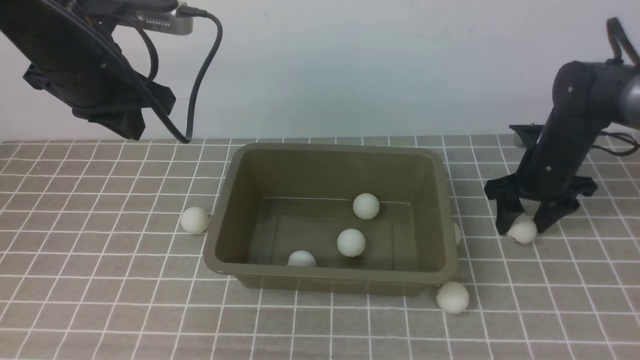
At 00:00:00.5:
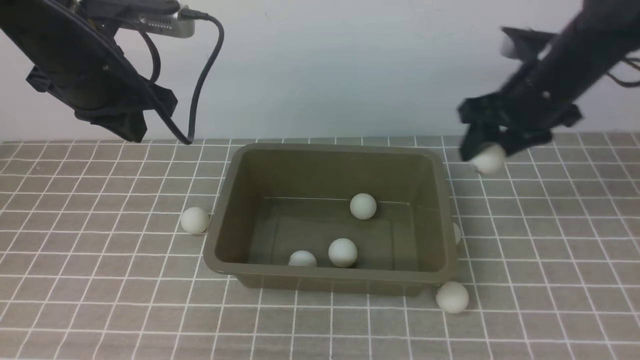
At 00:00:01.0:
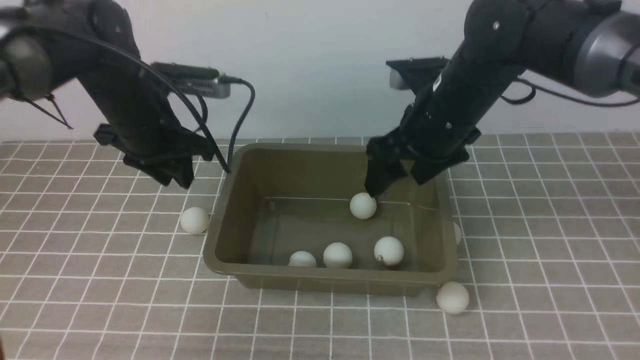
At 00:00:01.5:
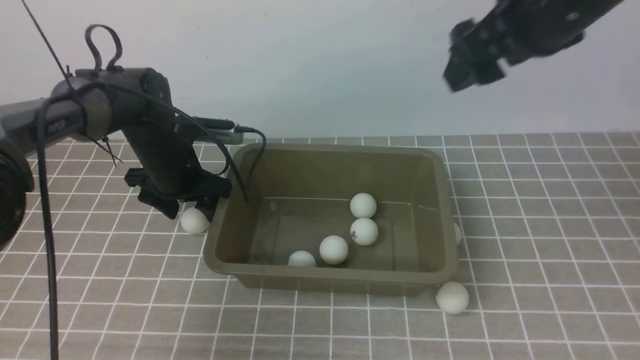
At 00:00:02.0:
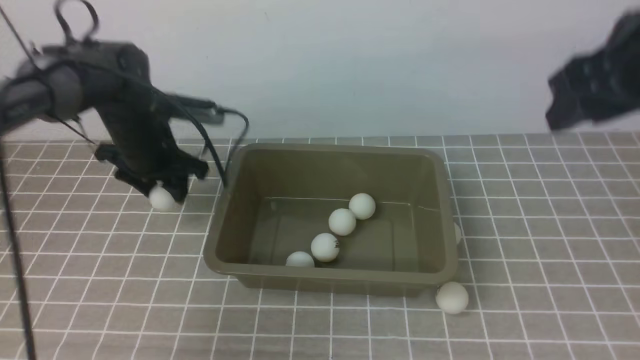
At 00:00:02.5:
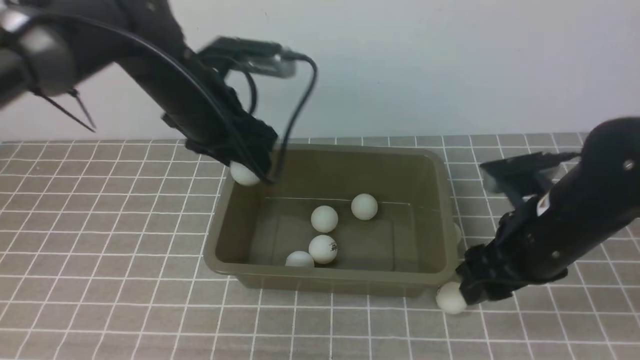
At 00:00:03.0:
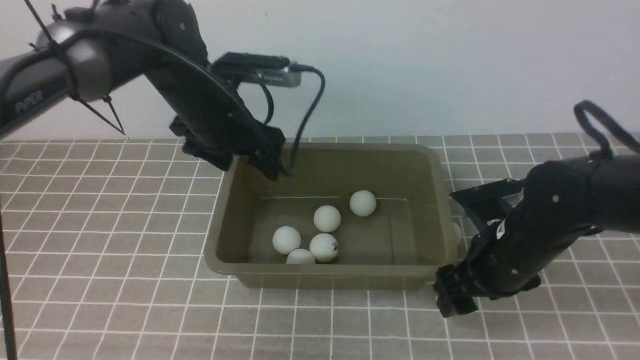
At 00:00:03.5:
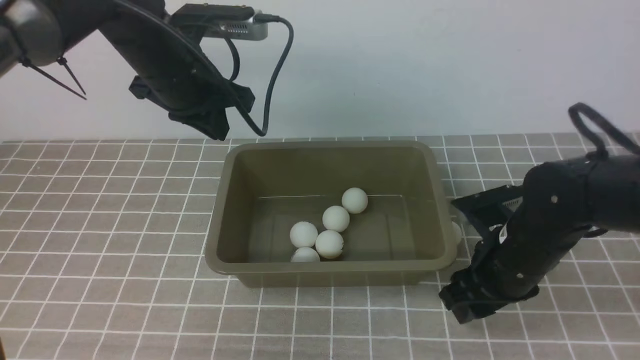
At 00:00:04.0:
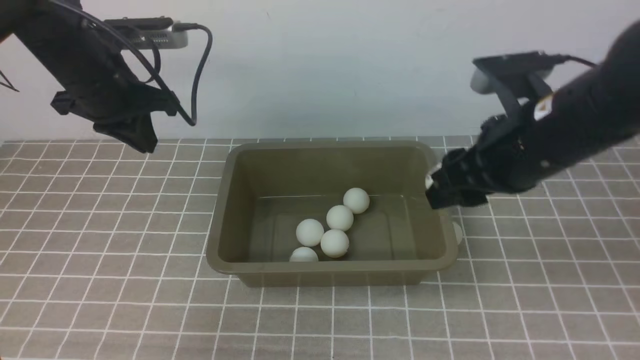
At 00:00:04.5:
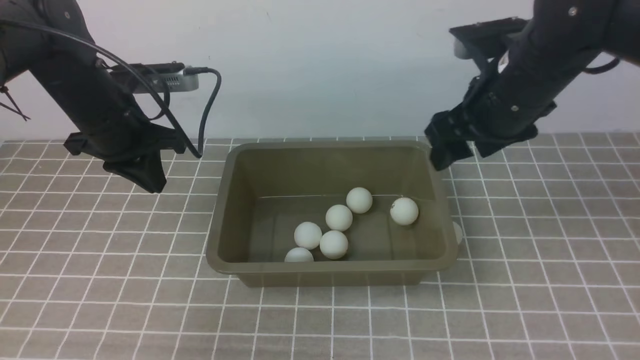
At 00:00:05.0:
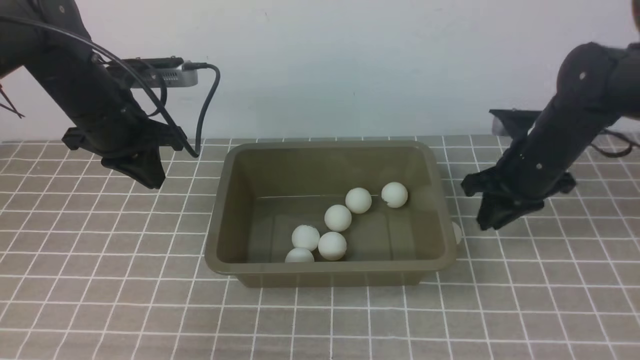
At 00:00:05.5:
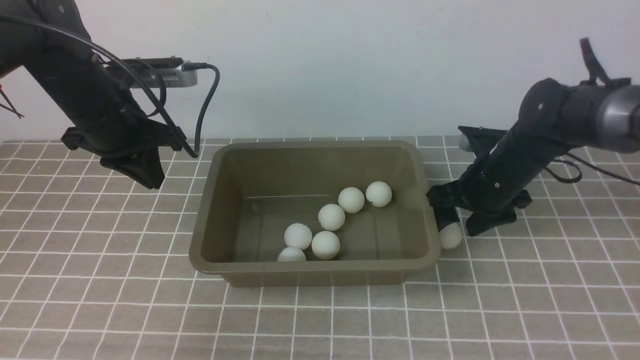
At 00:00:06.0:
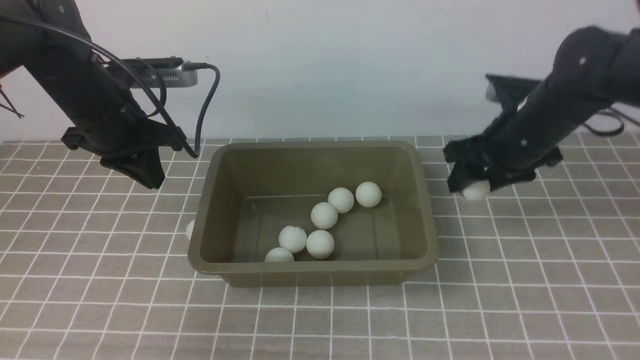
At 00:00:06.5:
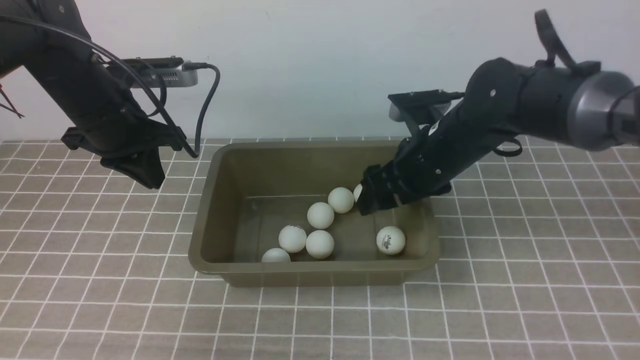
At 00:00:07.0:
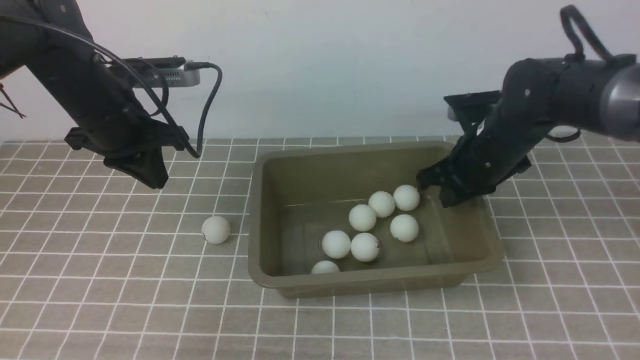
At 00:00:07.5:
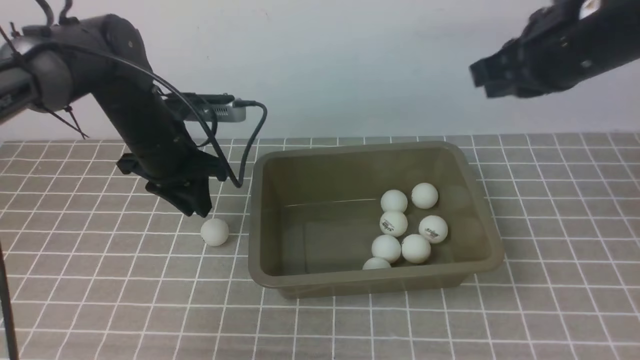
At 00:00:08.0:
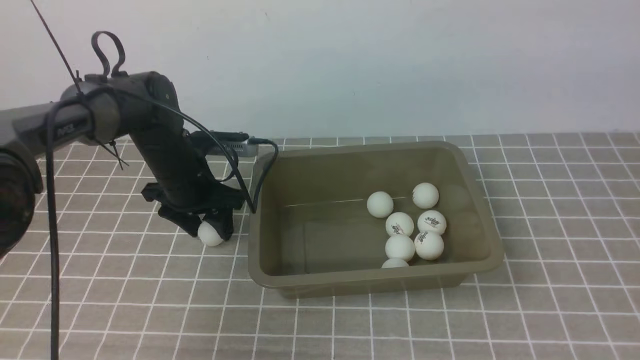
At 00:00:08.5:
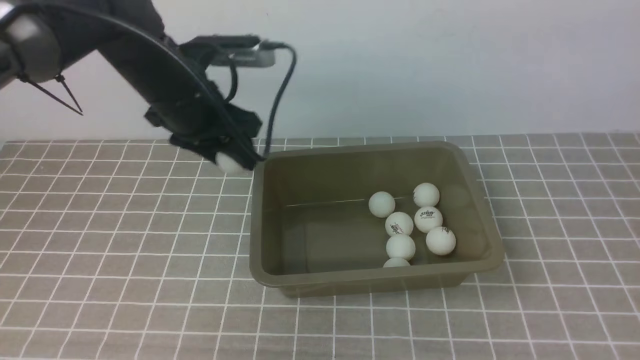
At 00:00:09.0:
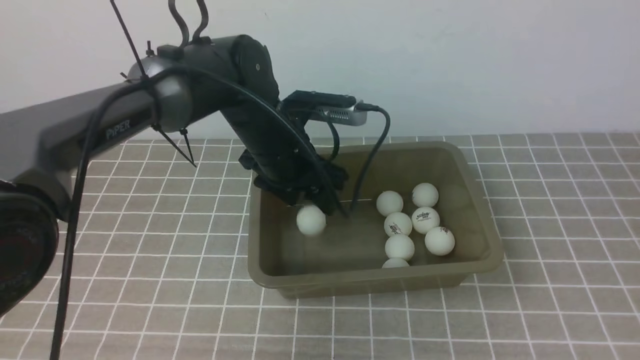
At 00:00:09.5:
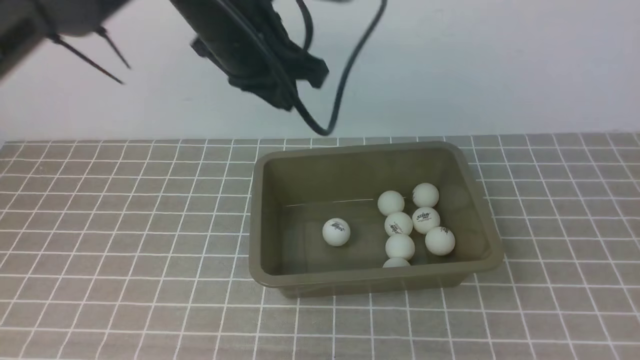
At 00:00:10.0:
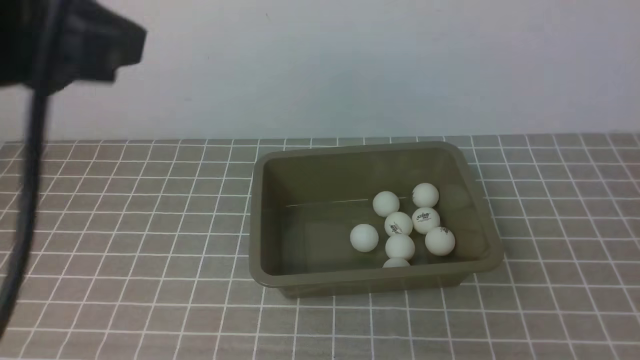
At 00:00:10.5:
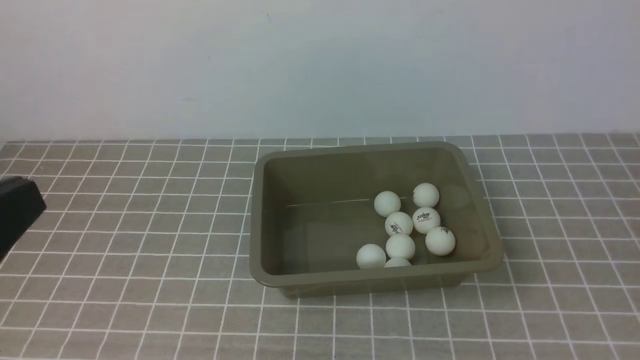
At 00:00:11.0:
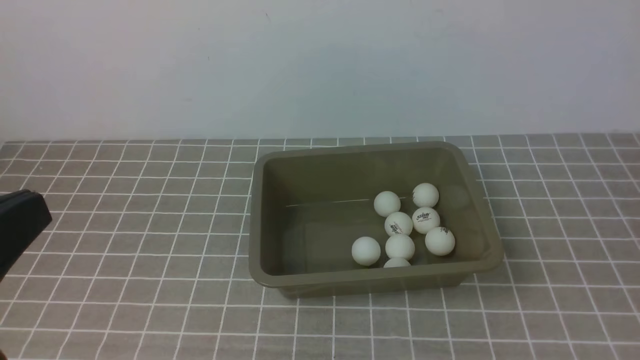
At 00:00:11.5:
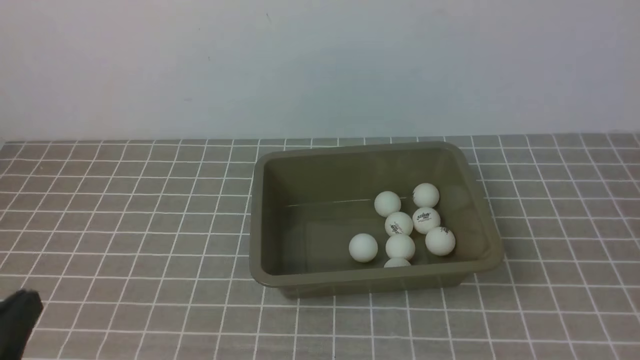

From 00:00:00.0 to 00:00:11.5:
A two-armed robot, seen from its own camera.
Step, from 00:00:01.5 to 00:00:02.0: use the left arm to clamp the table tennis ball closest to it.
Step, from 00:00:03.0 to 00:00:03.5: use the right arm to clamp the table tennis ball closest to it.
Step, from 00:00:04.0 to 00:00:04.5: use the right arm to put the table tennis ball into the box.
Step, from 00:00:05.0 to 00:00:05.5: use the right arm to clamp the table tennis ball closest to it.
Step, from 00:00:06.0 to 00:00:08.0: use the left arm to clamp the table tennis ball closest to it.
Step, from 00:00:08.5 to 00:00:09.0: use the left arm to put the table tennis ball into the box.
From 00:00:00.0 to 00:00:02.0: The right gripper heads upward and backward, covering approximately 25 cm; the left gripper moves downward and forward, approximately 15 cm, and opens.
From 00:00:02.0 to 00:00:04.0: The right gripper moves to the left, some 5 cm, and goes downward and returns, approximately 20 cm each way, while the left gripper is displaced upward by roughly 5 cm, goes to the right and returns, approximately 10 cm each way, and closes.
From 00:00:04.0 to 00:00:06.0: The right gripper shifts approximately 10 cm forward and downward.
From 00:00:06.0 to 00:00:07.5: The right gripper moves upward and backward, about 15 cm, and closes, while the left gripper moves about 5 cm, and opens up.
From 00:00:07.5 to 00:00:09.5: The left gripper travels upward and to the right by roughly 20 cm, and opens, then closes again, while the right gripper travels backward by roughly 35 cm.
From 00:00:09.5 to 00:00:11.5: The left gripper is displaced backward, to the left and downward by roughly 35 cm.

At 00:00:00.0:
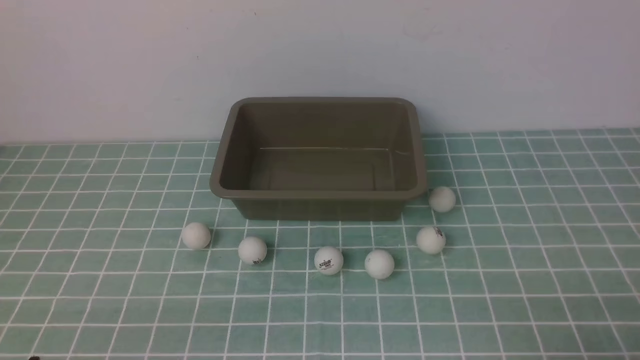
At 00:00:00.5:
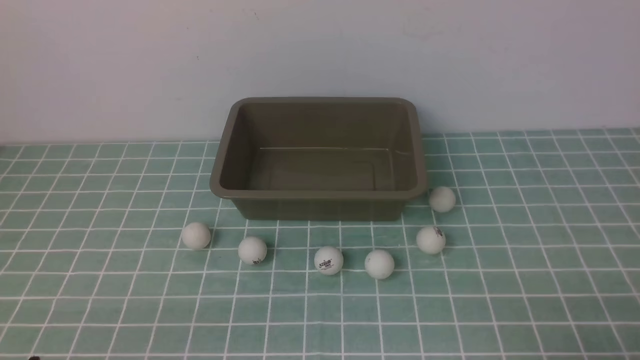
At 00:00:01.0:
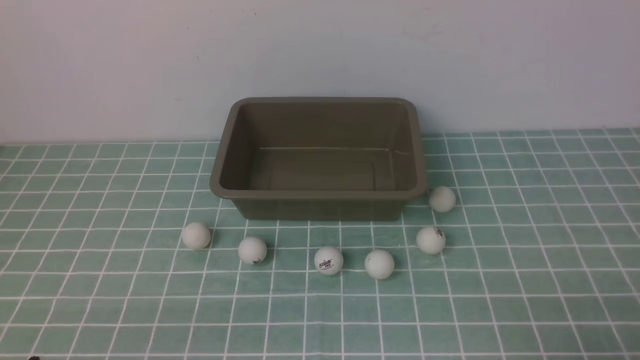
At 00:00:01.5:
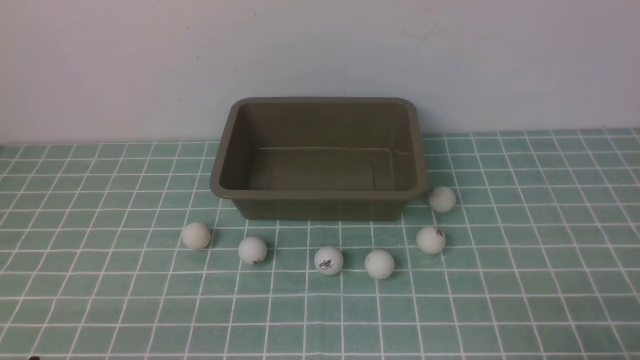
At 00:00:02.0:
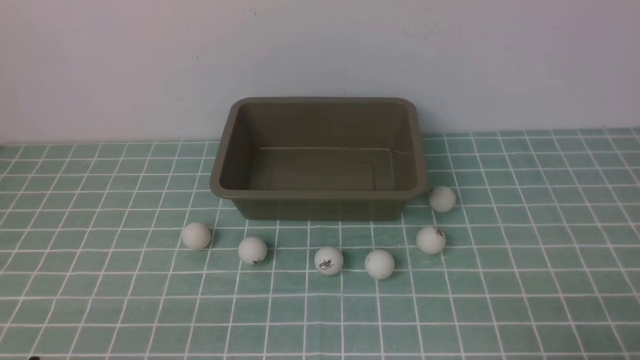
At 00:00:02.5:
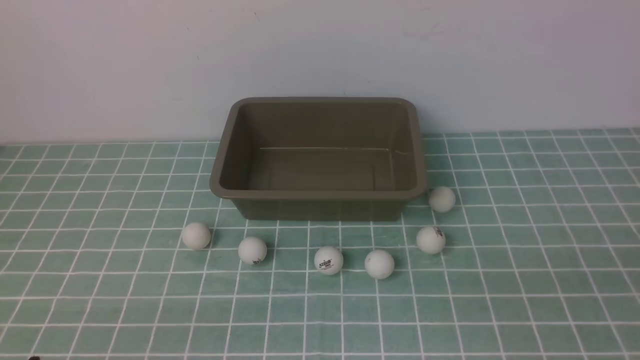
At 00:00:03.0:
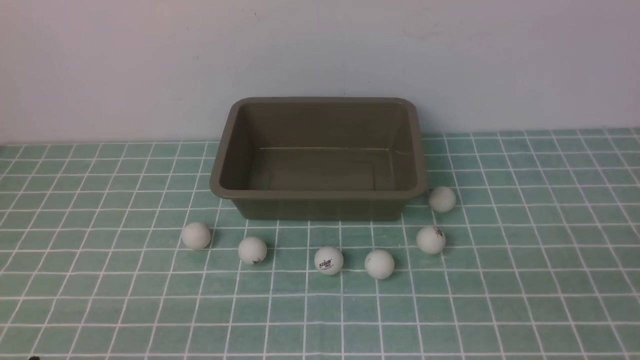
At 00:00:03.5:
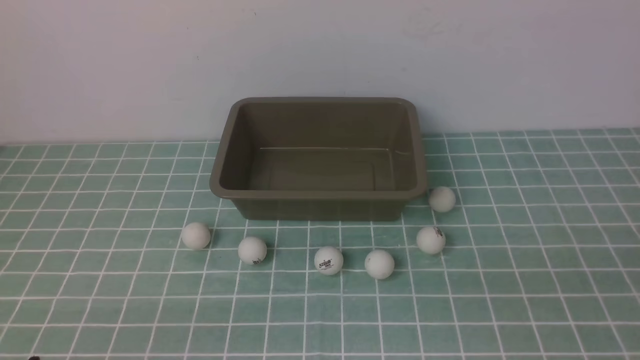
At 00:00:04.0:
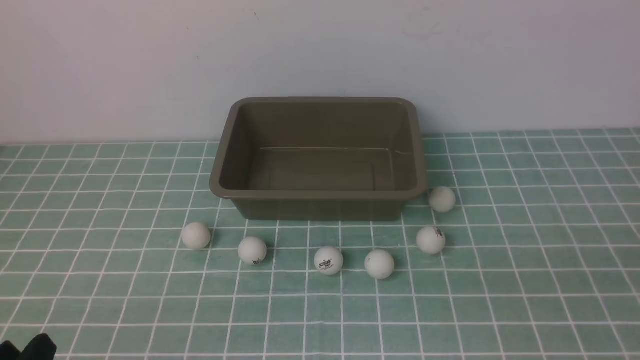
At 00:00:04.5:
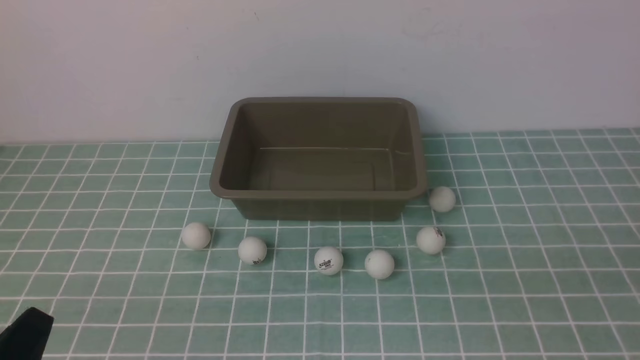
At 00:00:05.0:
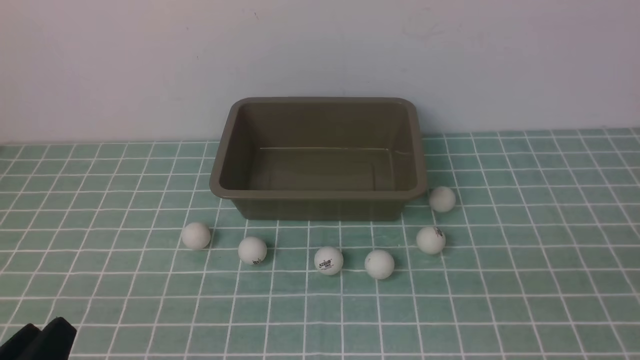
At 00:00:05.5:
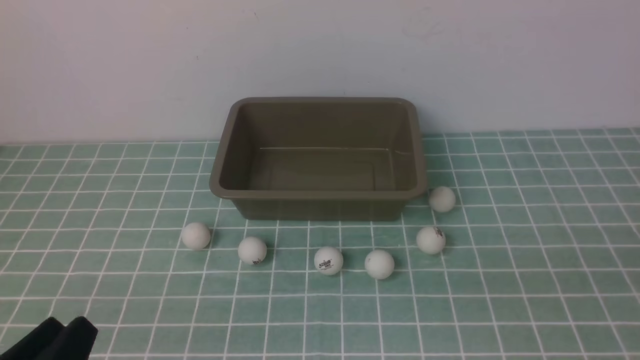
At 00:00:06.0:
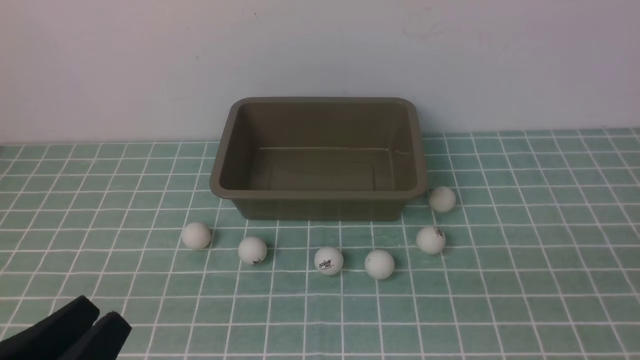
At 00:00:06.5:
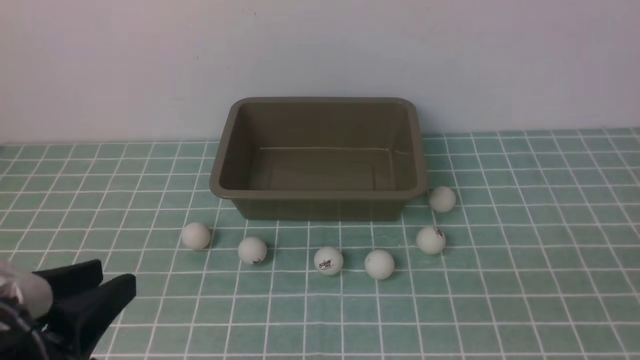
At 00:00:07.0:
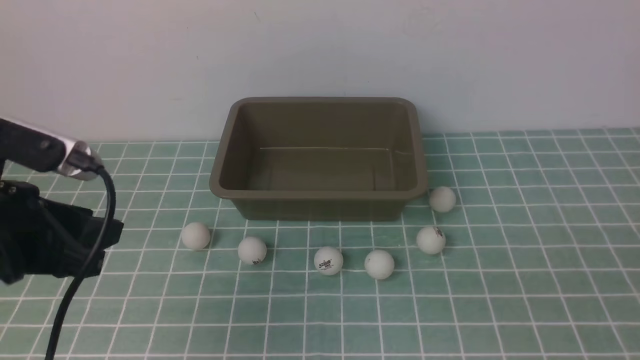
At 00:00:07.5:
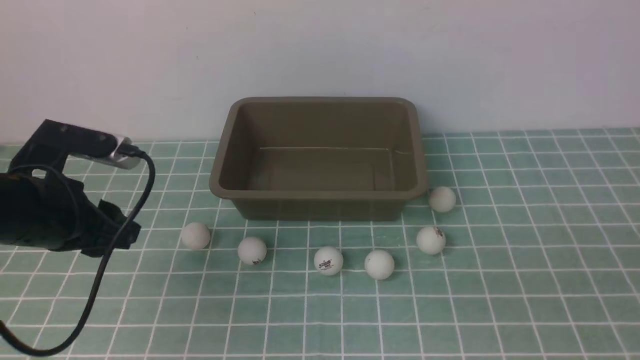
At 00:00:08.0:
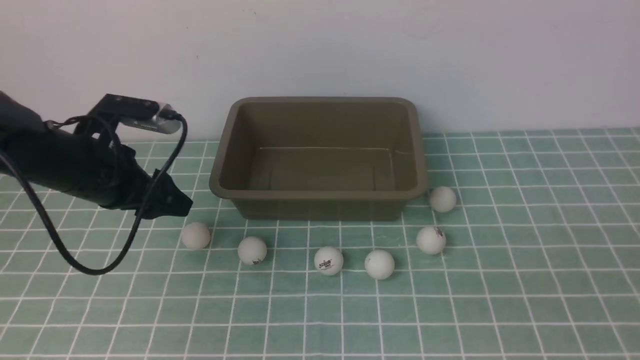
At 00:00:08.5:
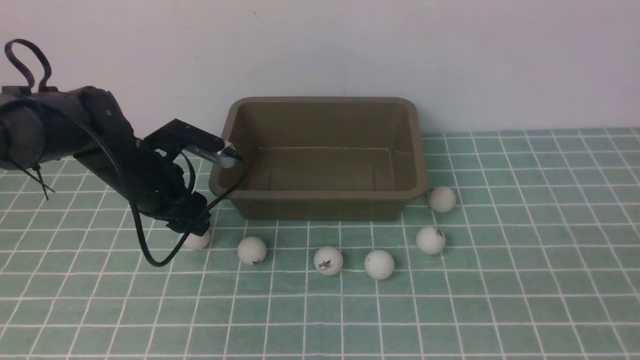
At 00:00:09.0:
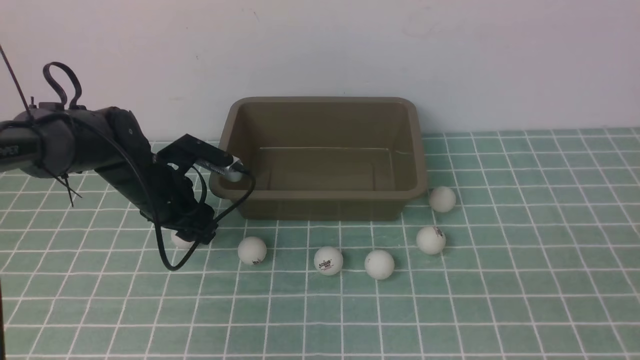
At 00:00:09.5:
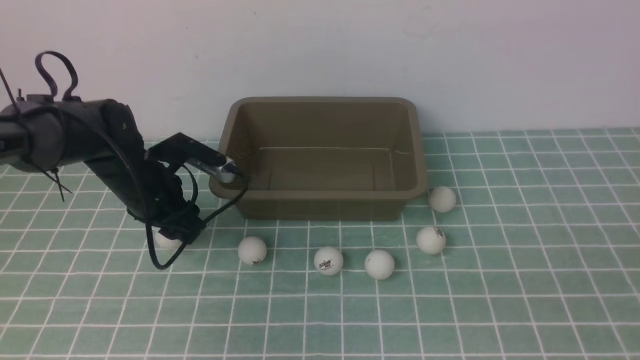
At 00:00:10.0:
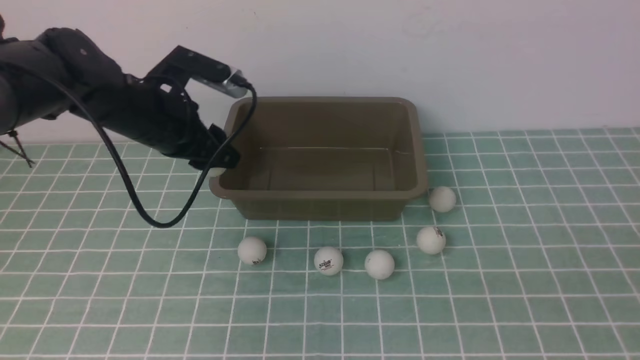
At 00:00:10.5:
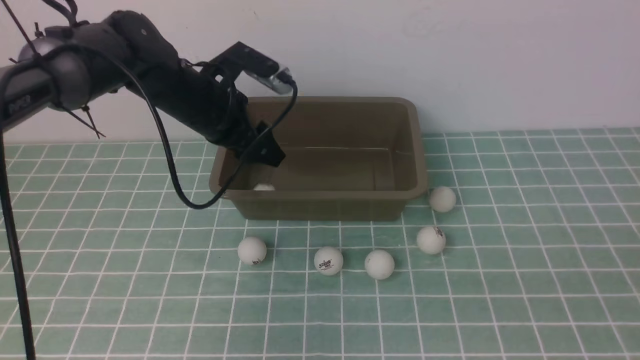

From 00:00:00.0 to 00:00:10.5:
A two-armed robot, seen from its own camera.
Step, from 00:00:00.0 to 00:00:09.5: use the left arm to clamp the table tennis ball closest to it.
From 00:00:00.0 to 00:00:02.0: Both grippers stay about where they are.
From 00:00:04.0 to 00:00:06.5: The left gripper goes about 15 cm upward and forward.
From 00:00:06.5 to 00:00:08.5: The left gripper moves forward and downward, approximately 30 cm, and opens up.
From 00:00:08.5 to 00:00:10.5: The left gripper travels upward by roughly 15 cm, and closes.
